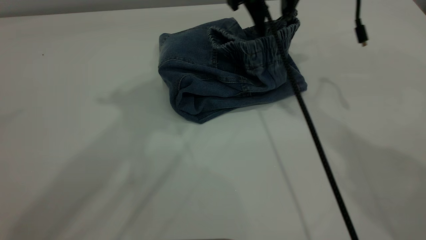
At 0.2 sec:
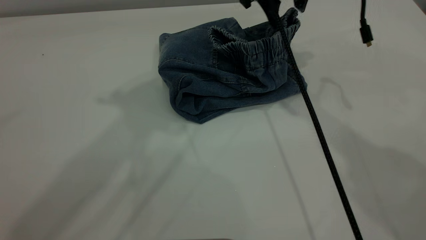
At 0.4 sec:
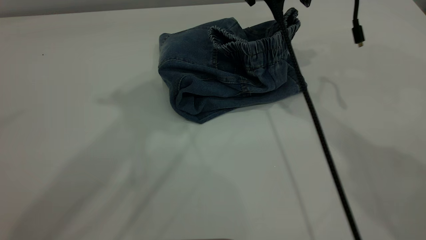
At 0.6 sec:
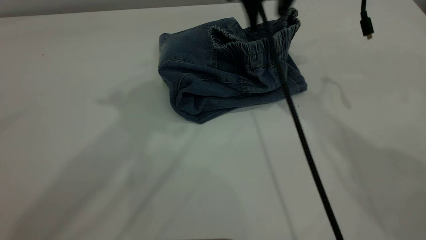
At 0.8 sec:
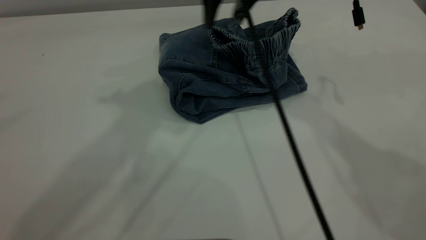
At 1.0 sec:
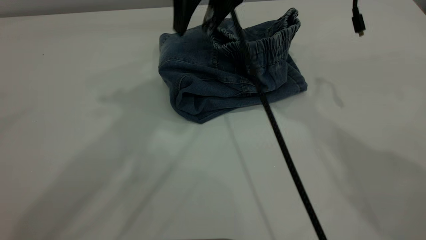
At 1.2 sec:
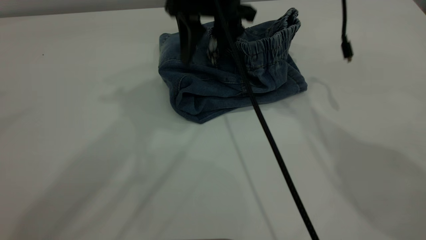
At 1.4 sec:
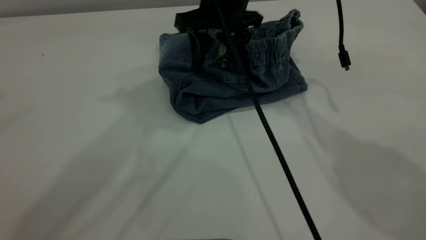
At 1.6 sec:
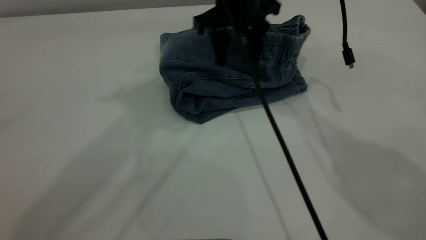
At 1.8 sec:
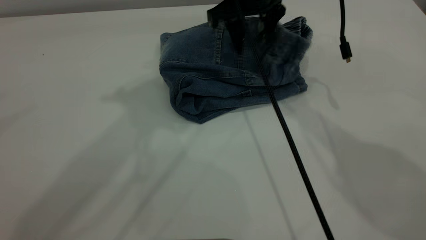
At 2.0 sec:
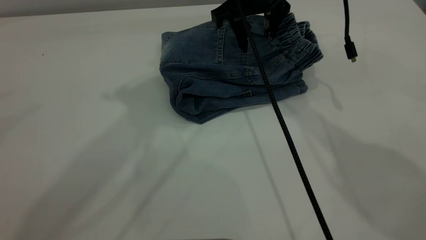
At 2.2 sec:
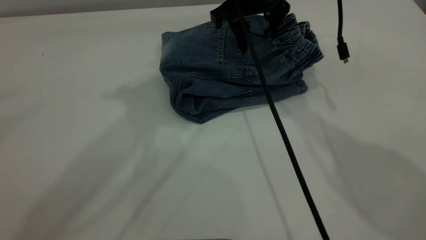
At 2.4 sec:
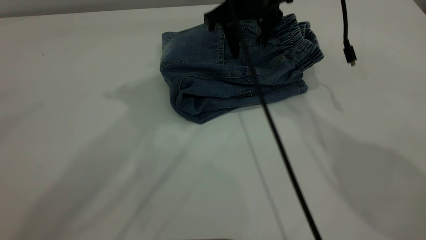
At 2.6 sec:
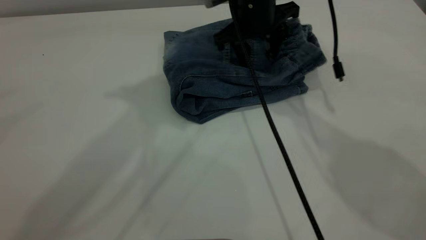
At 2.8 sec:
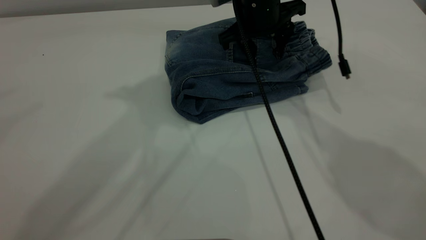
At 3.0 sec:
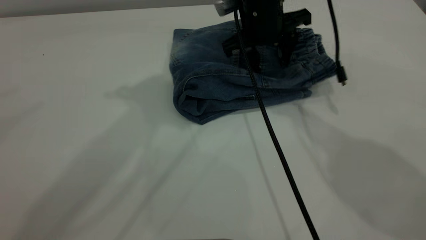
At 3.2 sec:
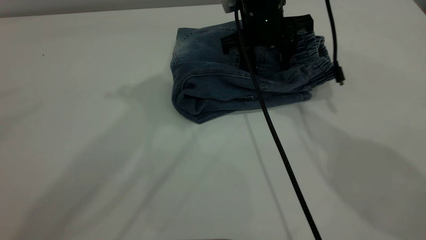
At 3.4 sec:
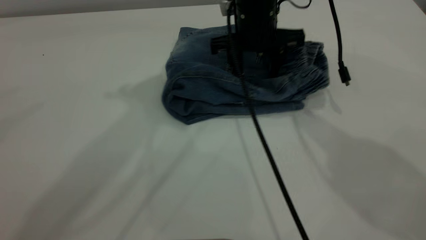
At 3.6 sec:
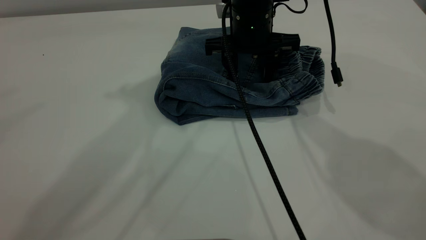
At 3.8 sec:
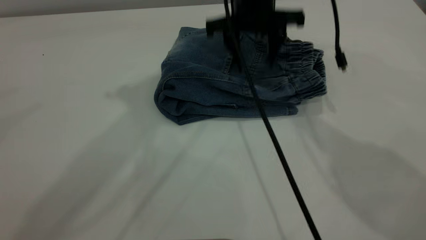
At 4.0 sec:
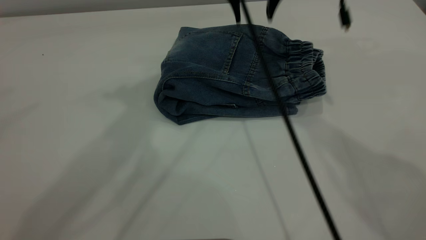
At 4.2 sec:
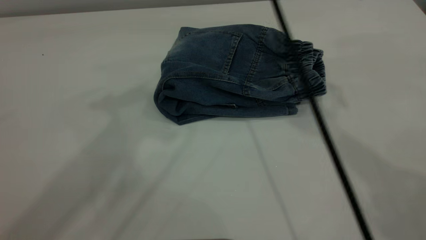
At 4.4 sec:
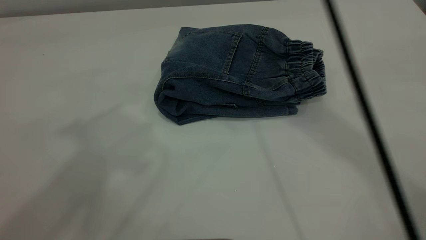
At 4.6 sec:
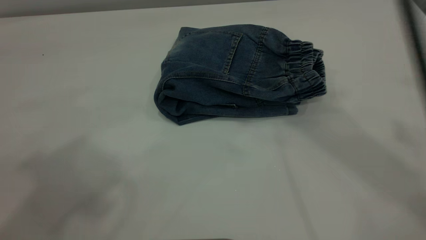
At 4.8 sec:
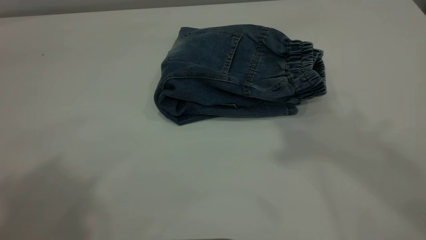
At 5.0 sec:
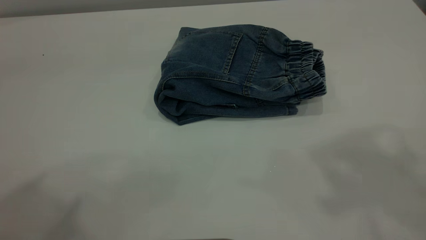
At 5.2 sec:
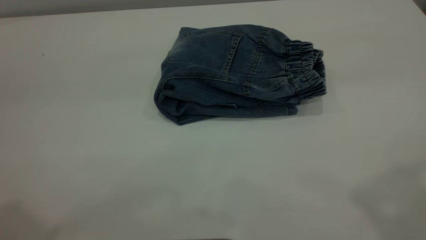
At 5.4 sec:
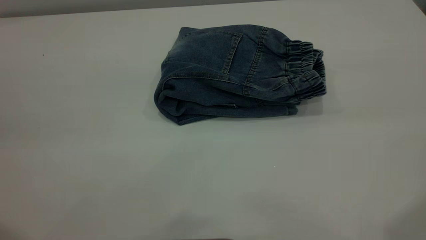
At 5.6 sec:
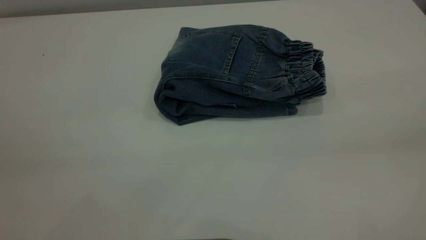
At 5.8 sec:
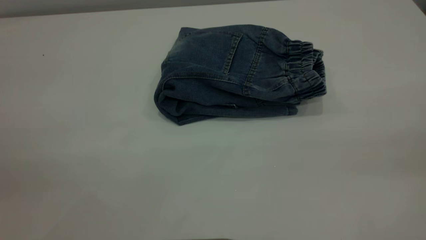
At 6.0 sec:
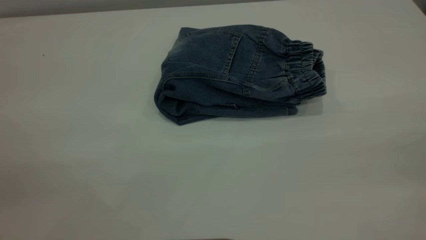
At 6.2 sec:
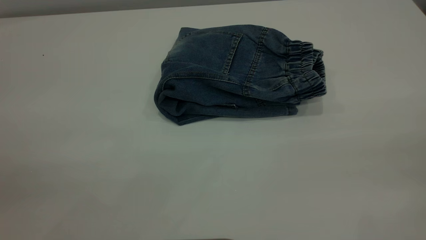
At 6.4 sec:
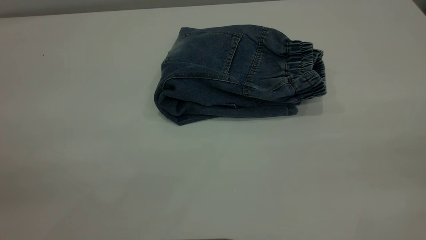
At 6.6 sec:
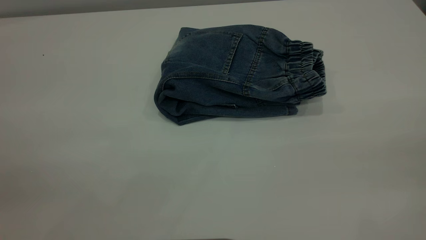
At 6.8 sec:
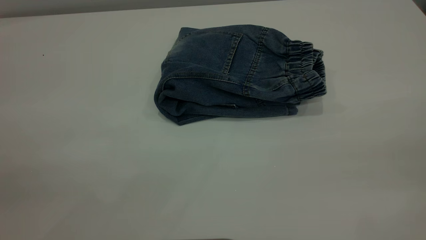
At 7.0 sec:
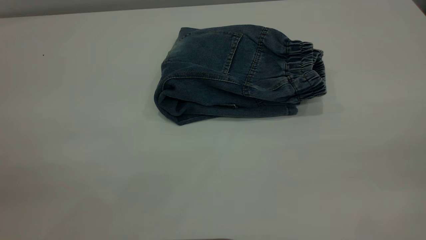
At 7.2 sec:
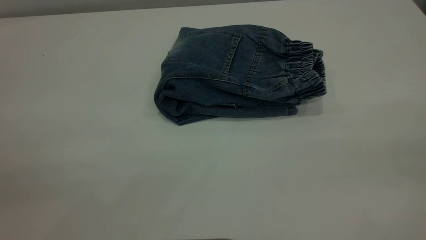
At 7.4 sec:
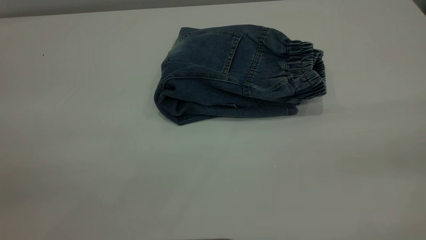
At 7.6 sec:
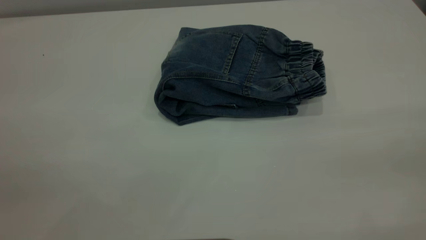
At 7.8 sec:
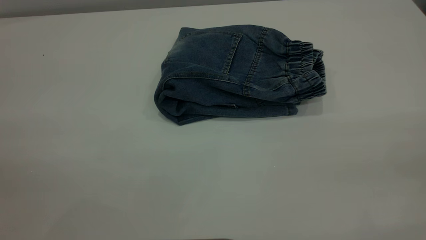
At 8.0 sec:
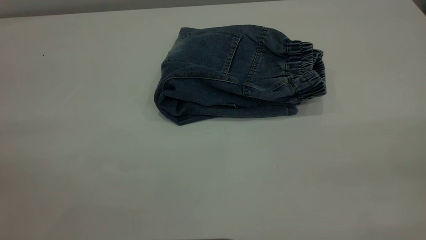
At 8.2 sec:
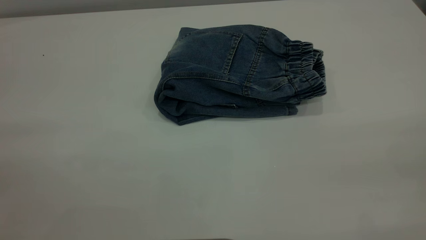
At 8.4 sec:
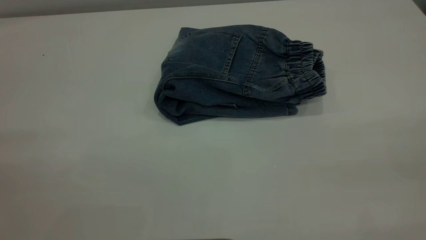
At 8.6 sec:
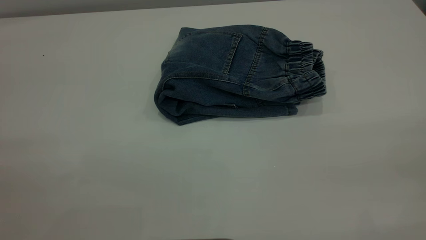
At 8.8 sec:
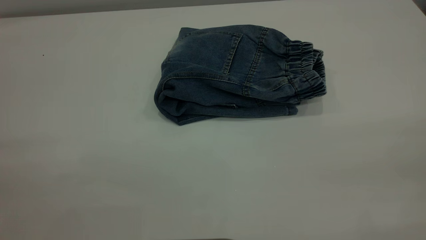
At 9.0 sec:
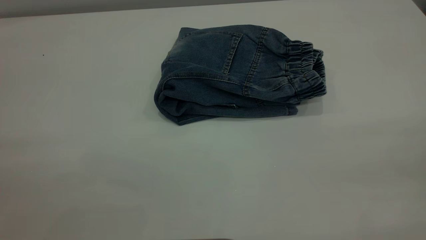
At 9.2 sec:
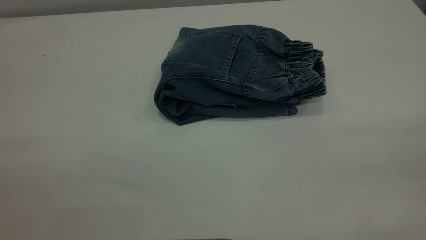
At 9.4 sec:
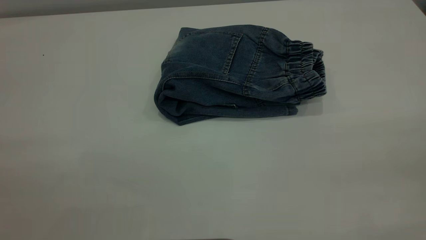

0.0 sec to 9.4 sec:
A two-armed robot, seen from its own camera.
0.0 sec to 1.6 sec: The right gripper ends up roughly 5 cm from where it was.
3.2 sec to 4.8 sec: The right gripper is displaced upward and backward by about 40 cm, while the left gripper goes about 20 cm backward, upward and to the left.
